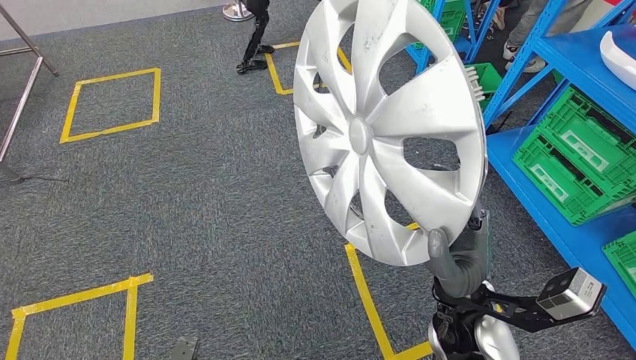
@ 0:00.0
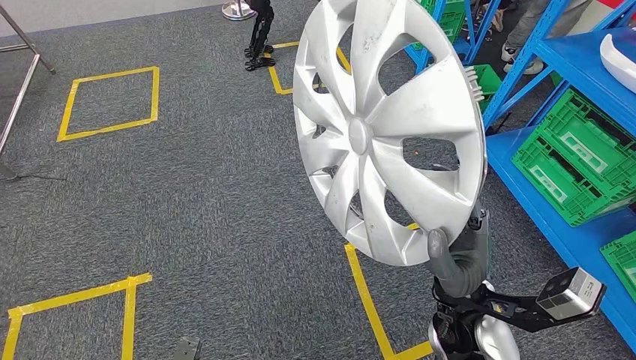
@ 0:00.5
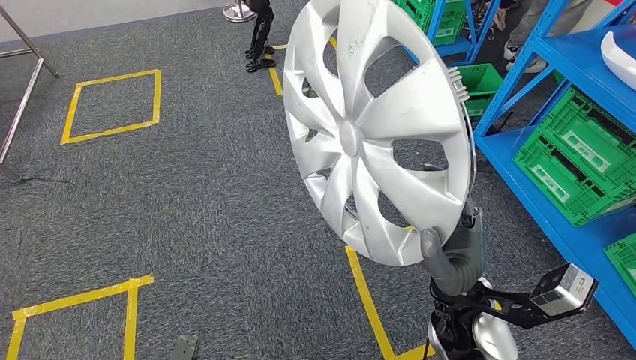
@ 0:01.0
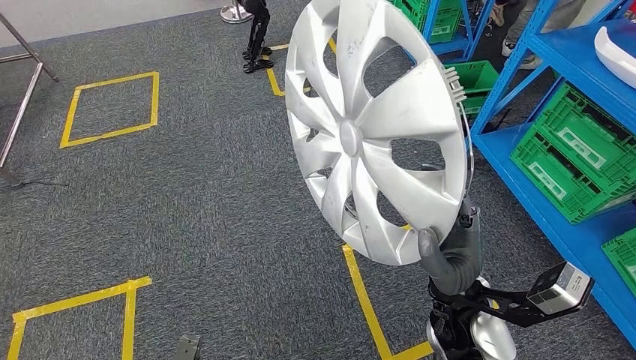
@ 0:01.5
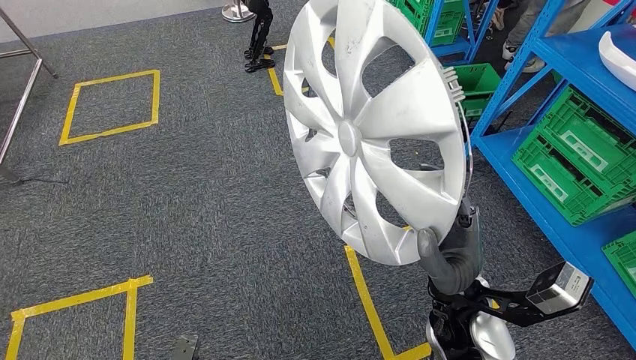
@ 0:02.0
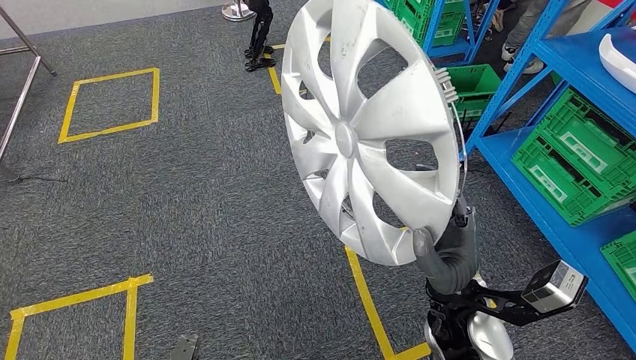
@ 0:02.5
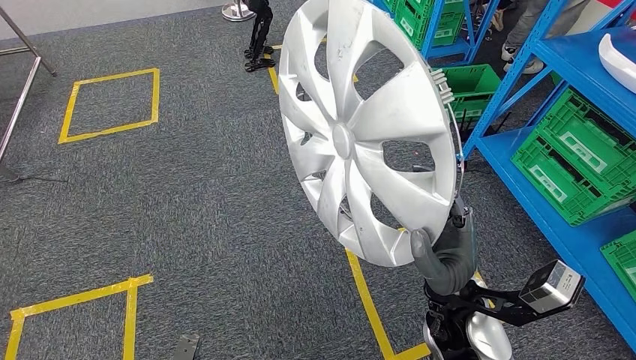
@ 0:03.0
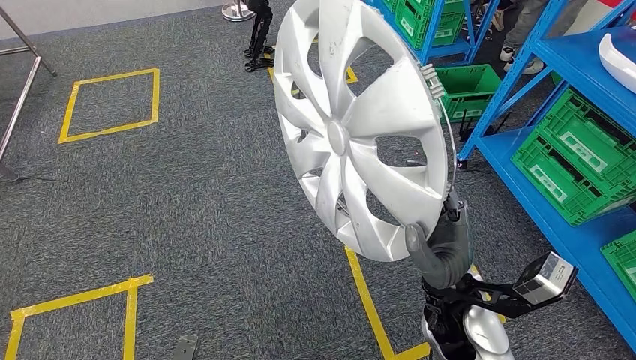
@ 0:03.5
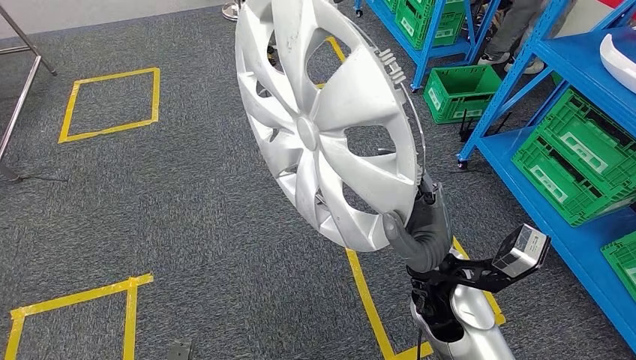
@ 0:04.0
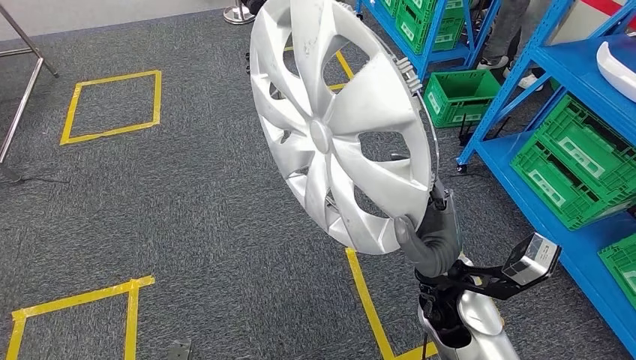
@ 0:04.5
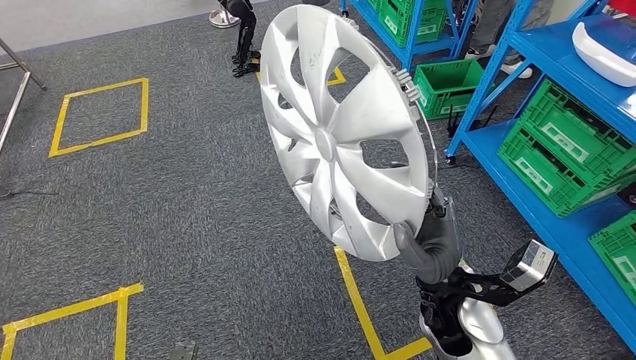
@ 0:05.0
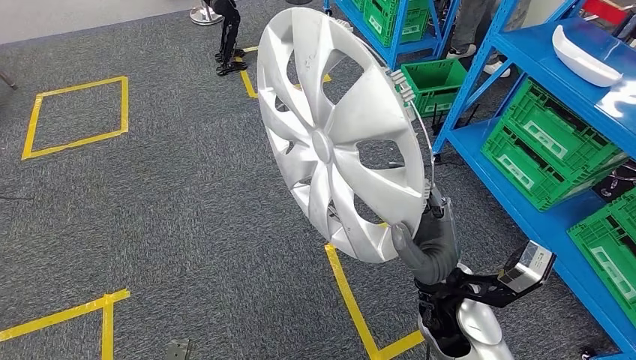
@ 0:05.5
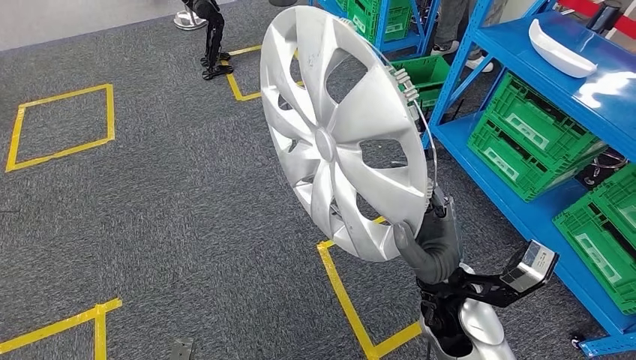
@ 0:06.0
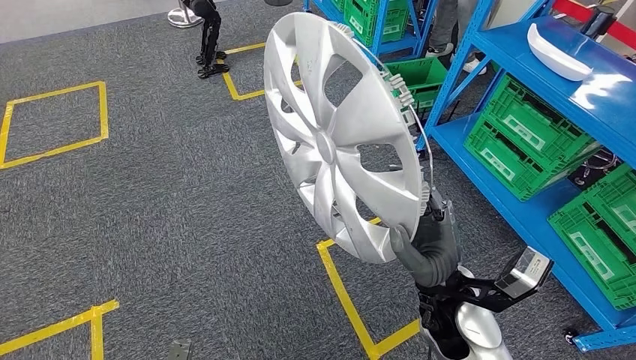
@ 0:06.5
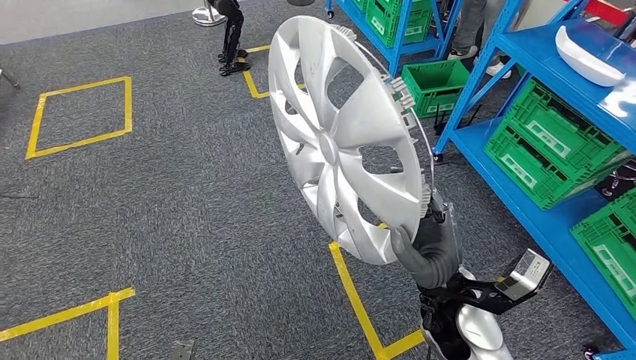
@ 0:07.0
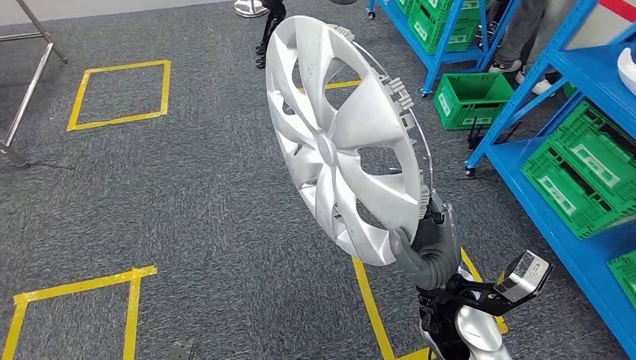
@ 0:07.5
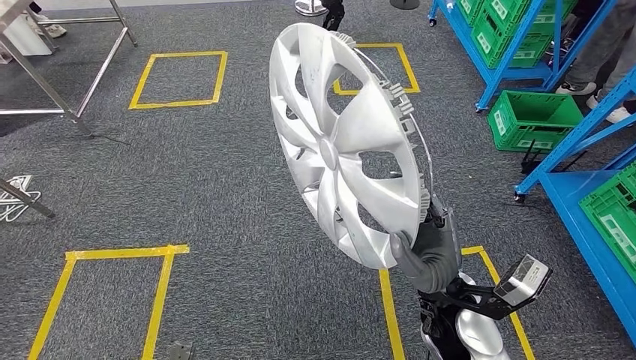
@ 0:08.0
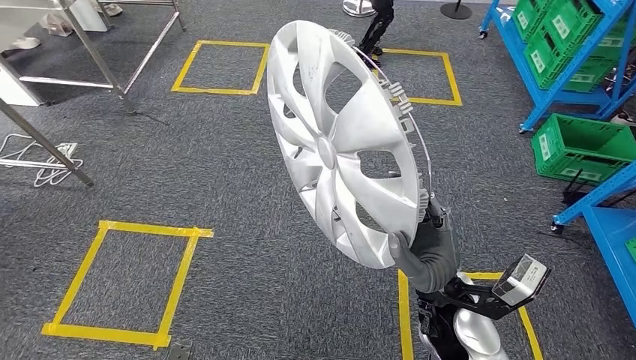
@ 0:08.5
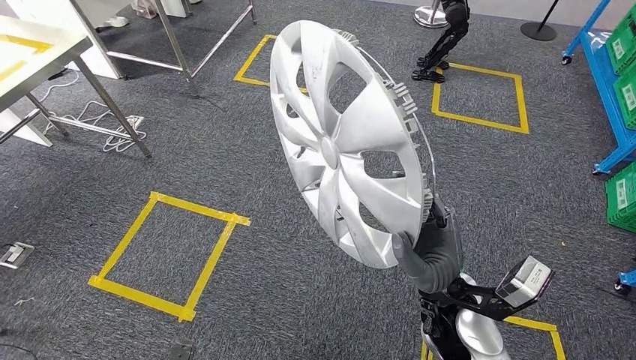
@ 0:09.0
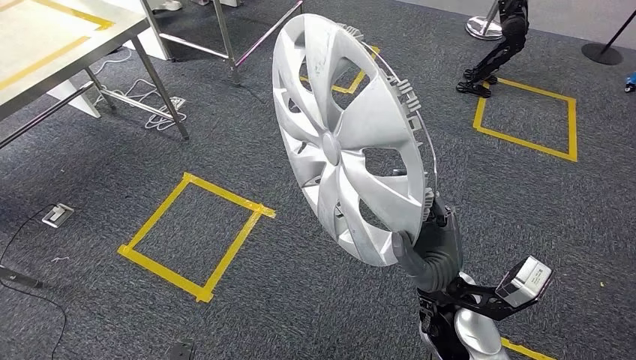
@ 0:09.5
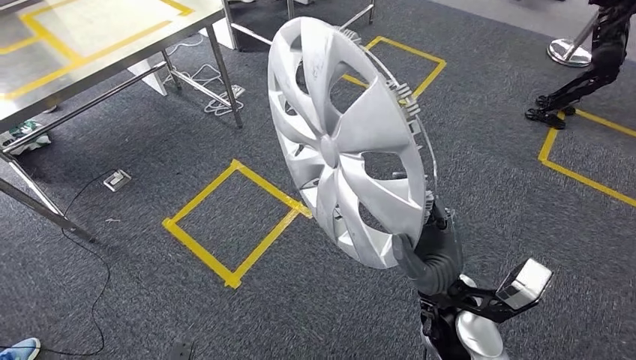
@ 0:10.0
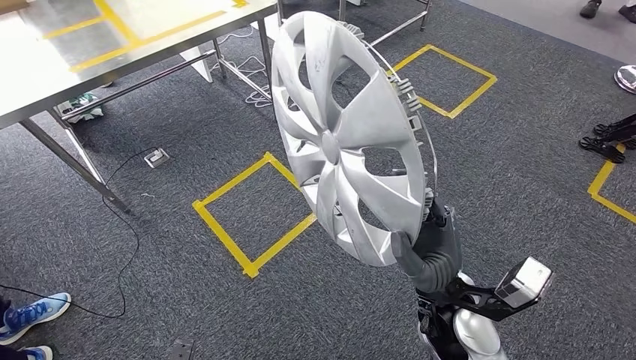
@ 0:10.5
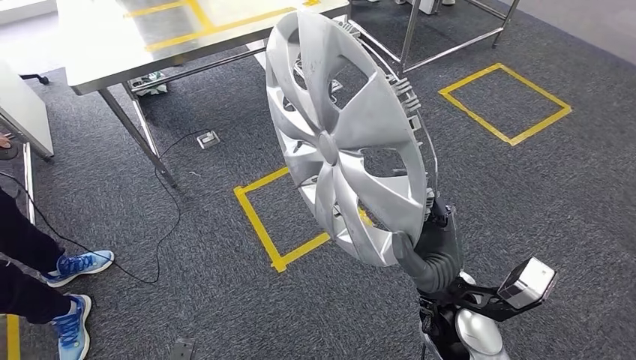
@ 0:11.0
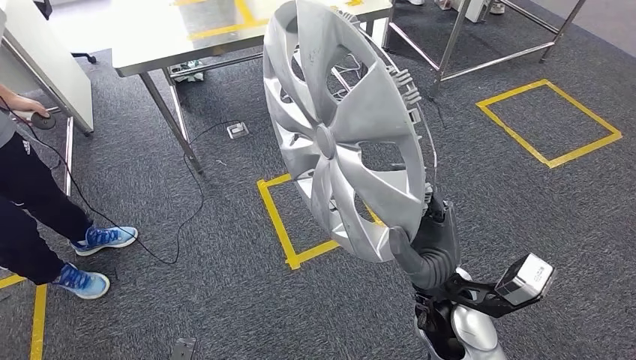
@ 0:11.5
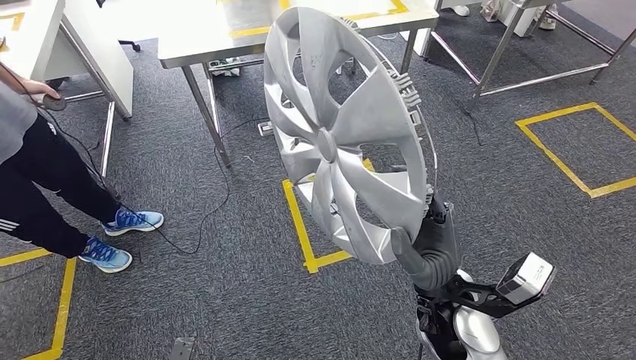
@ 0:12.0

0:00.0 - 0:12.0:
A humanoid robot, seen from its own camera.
Step, 0:00.0 - 0:11.5: Move the small parts to the workbench.
0:00.0 - 0:02.0: The two hands keep their place.

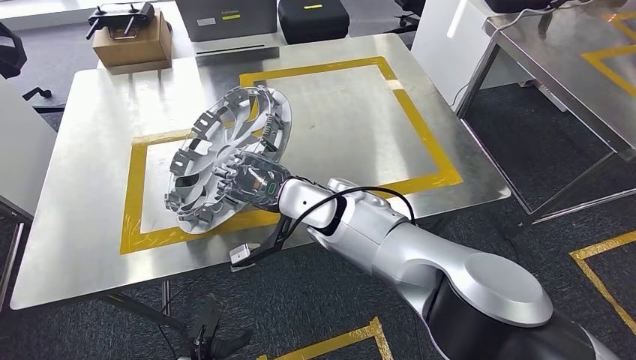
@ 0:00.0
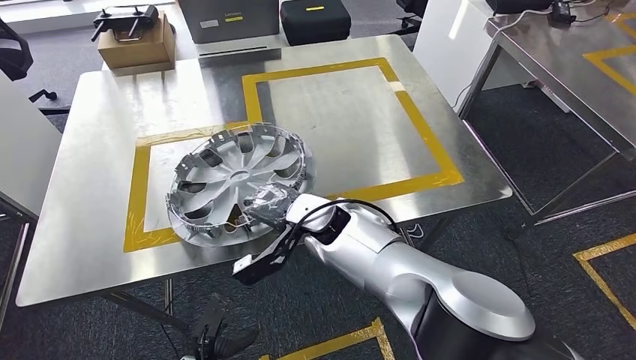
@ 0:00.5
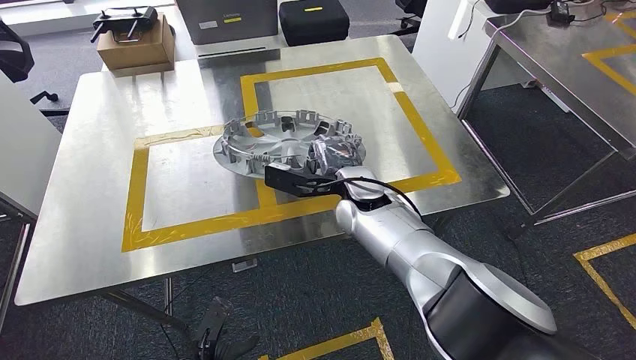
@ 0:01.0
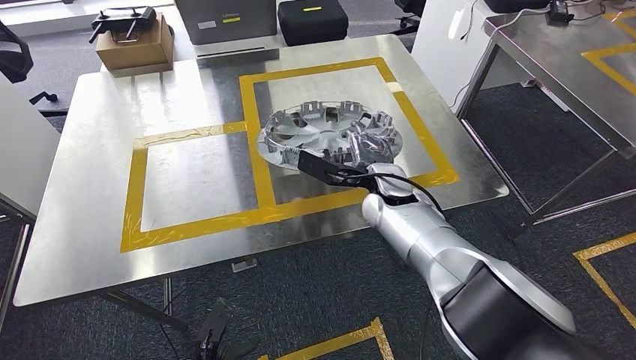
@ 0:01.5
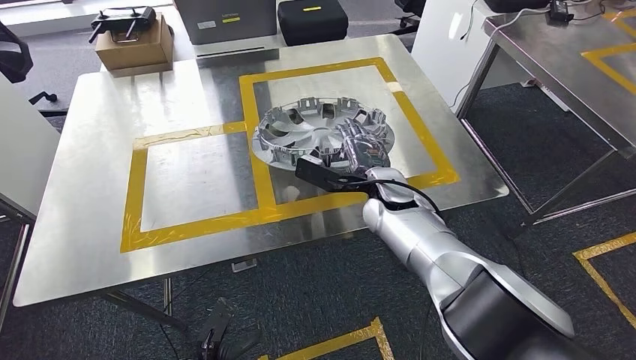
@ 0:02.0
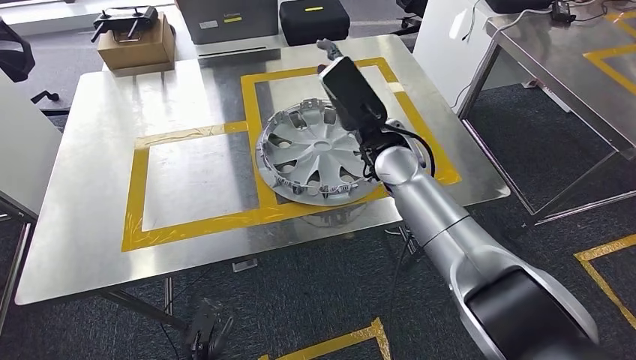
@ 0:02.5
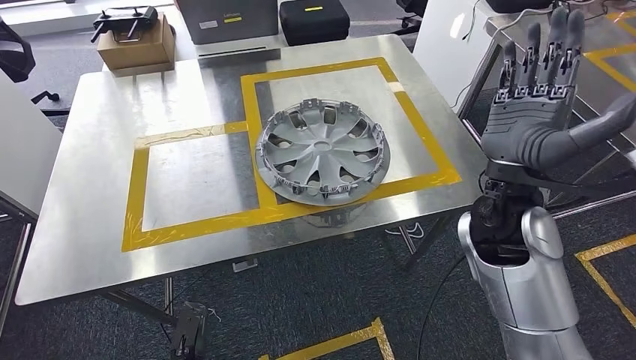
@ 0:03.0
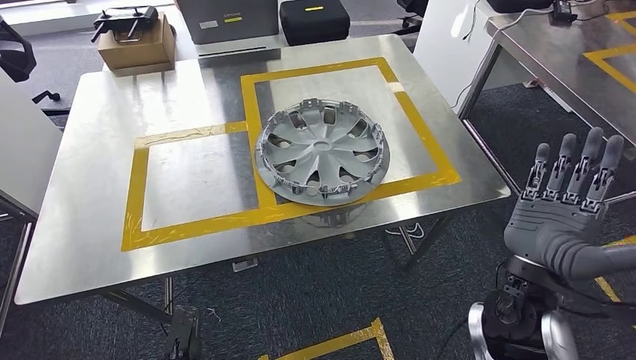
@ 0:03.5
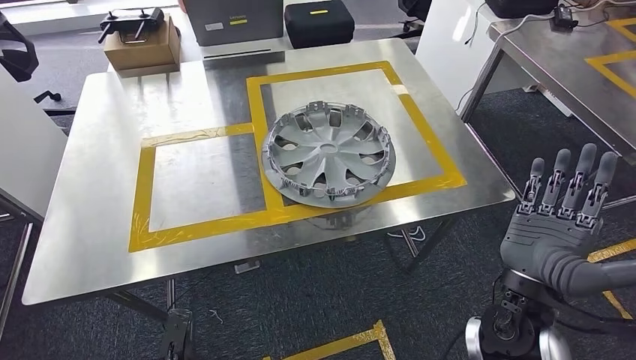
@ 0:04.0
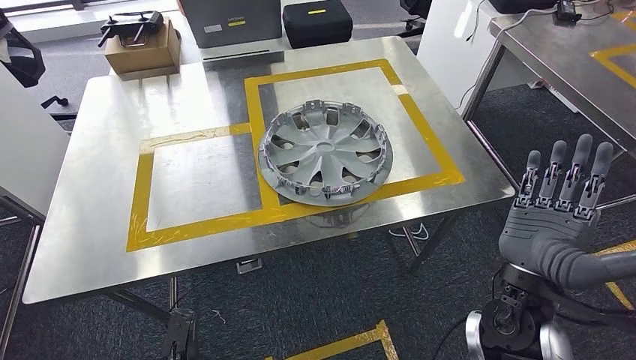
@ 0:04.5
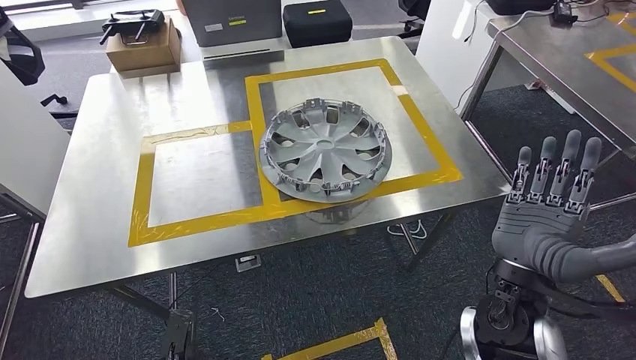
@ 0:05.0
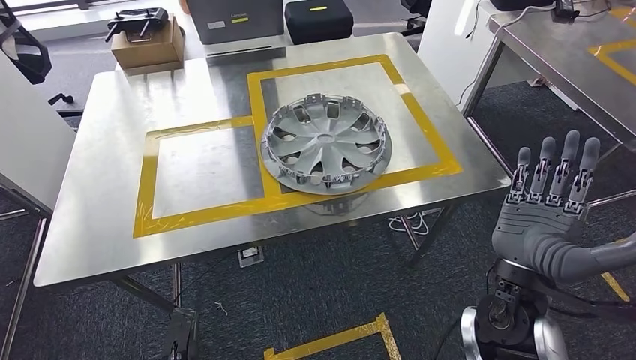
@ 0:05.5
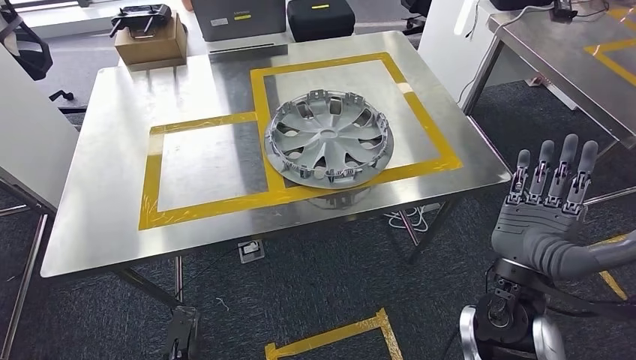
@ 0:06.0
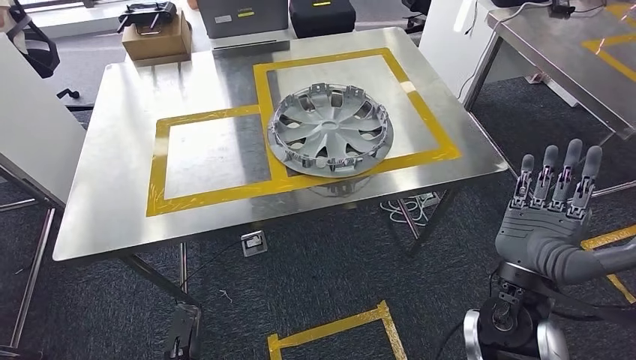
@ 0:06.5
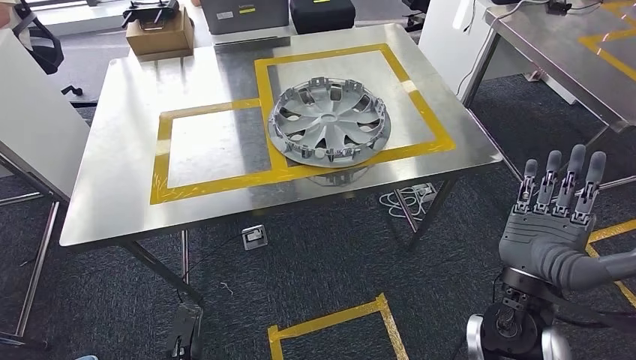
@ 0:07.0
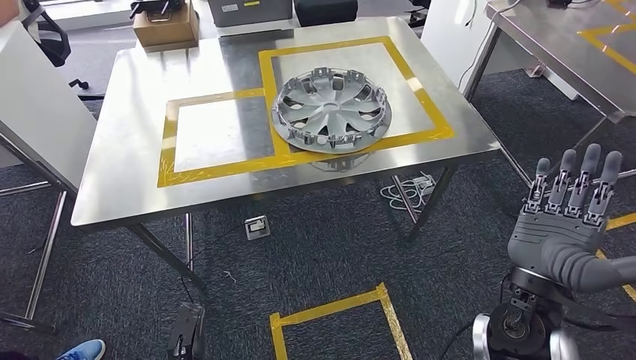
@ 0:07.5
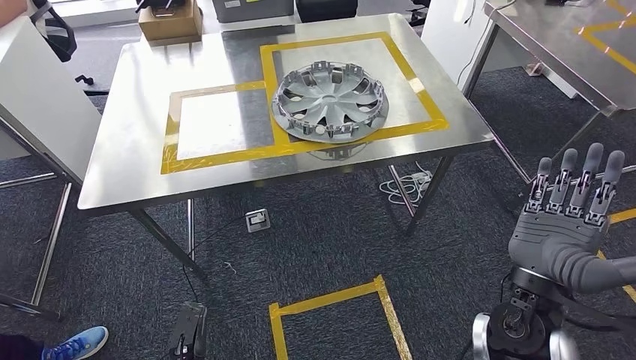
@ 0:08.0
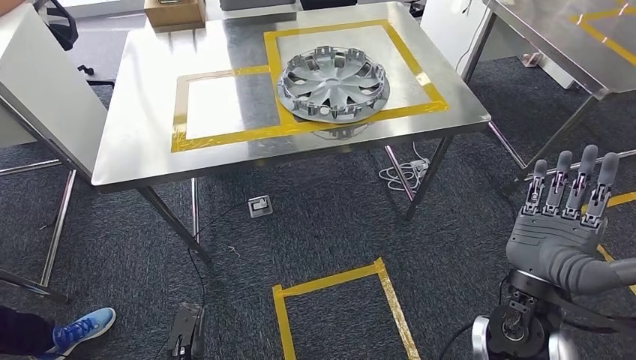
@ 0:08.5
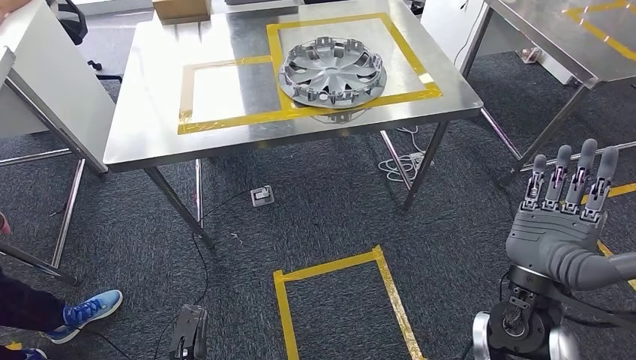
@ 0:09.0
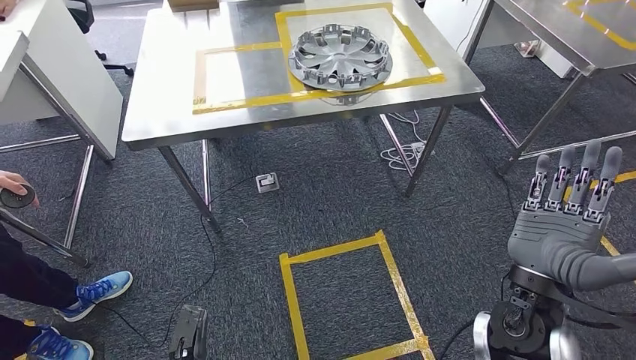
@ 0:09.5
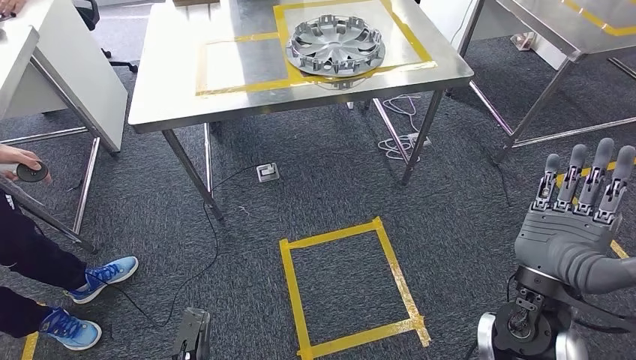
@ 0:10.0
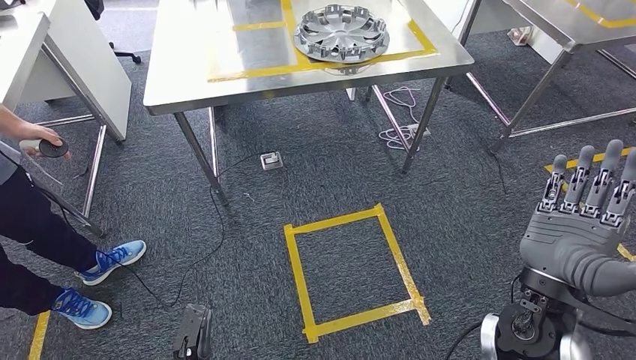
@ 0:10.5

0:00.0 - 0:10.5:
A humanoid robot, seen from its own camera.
Step, 0:00.0 - 0:03.0: Insert the small parts into the corresponding holes on the workbench.
Step, 0:03.5 - 0:10.5: Move to the initial position at the workbench.
